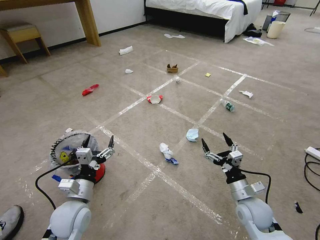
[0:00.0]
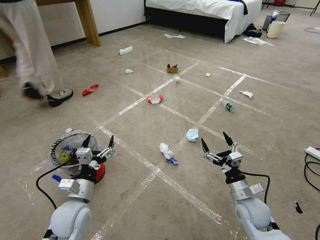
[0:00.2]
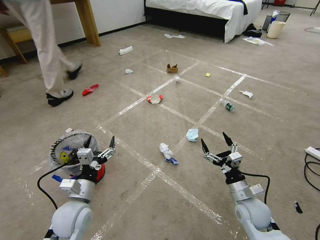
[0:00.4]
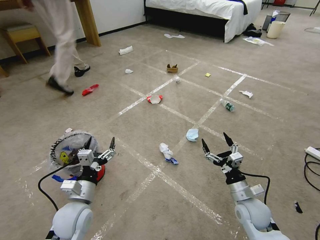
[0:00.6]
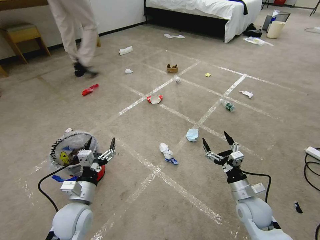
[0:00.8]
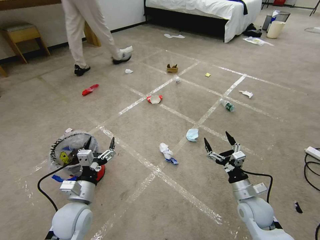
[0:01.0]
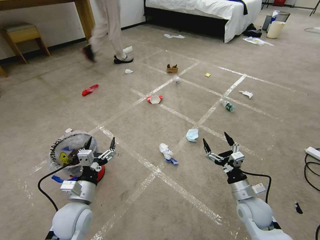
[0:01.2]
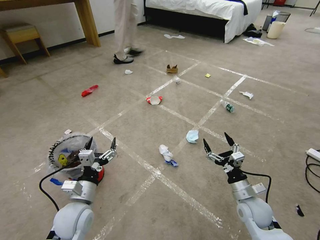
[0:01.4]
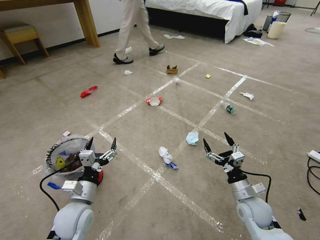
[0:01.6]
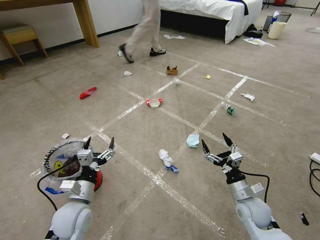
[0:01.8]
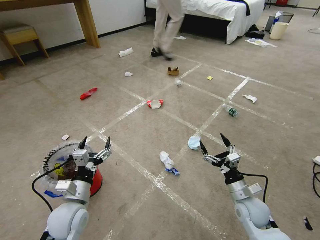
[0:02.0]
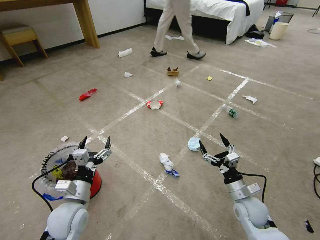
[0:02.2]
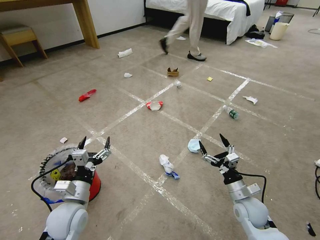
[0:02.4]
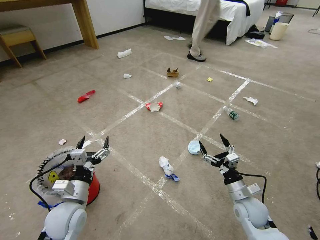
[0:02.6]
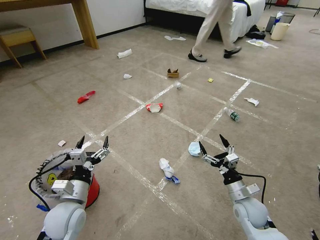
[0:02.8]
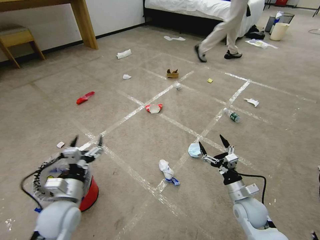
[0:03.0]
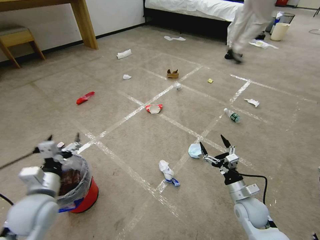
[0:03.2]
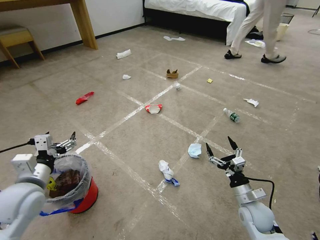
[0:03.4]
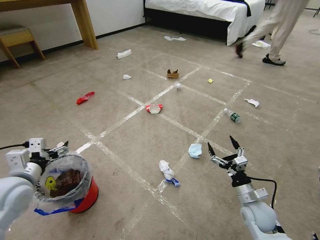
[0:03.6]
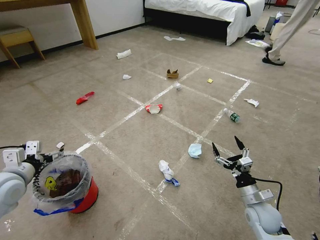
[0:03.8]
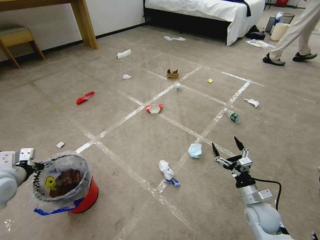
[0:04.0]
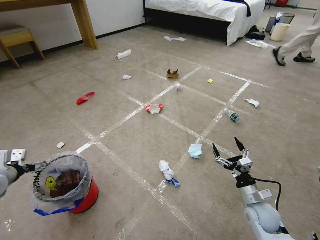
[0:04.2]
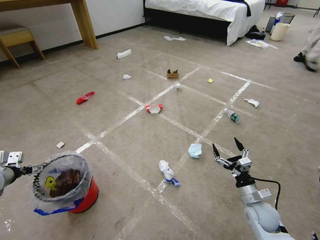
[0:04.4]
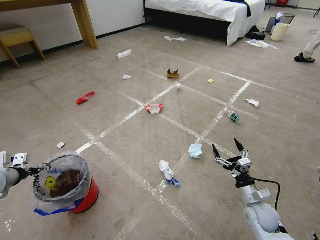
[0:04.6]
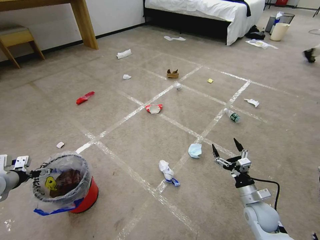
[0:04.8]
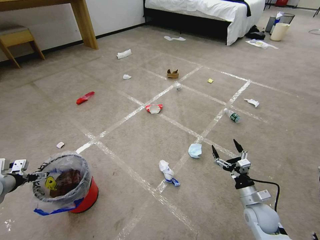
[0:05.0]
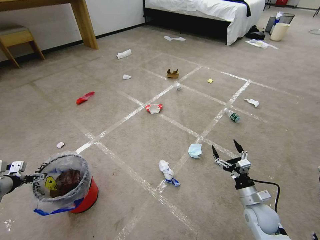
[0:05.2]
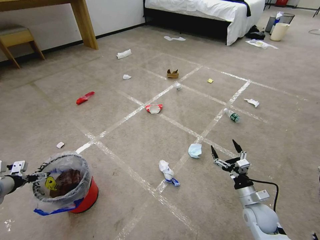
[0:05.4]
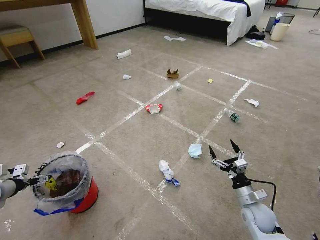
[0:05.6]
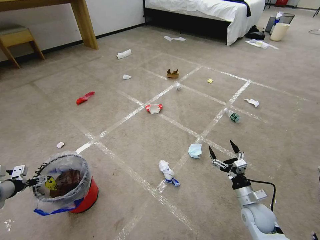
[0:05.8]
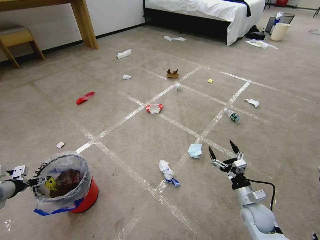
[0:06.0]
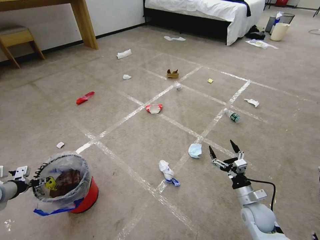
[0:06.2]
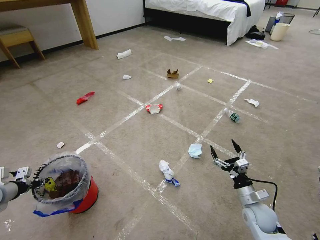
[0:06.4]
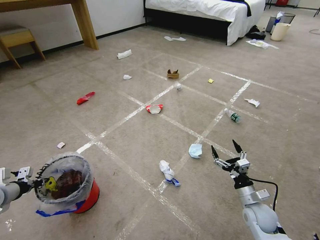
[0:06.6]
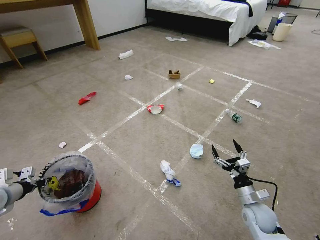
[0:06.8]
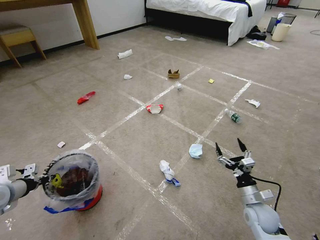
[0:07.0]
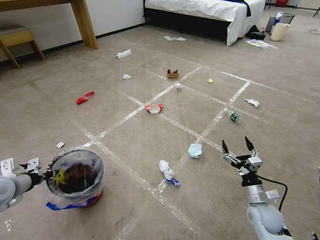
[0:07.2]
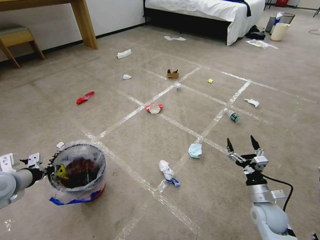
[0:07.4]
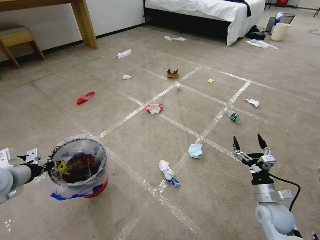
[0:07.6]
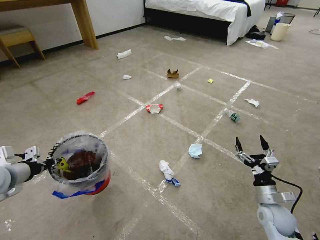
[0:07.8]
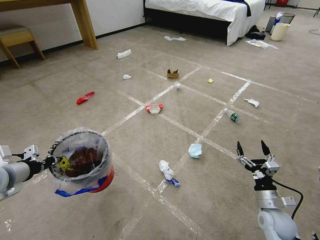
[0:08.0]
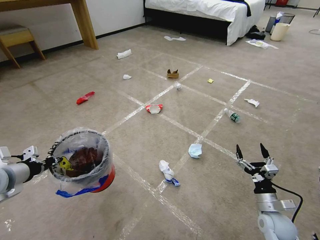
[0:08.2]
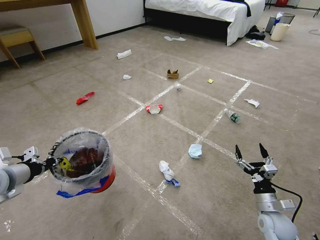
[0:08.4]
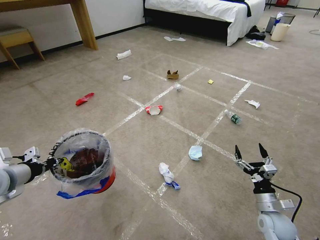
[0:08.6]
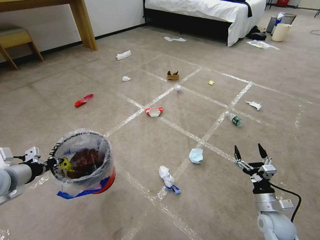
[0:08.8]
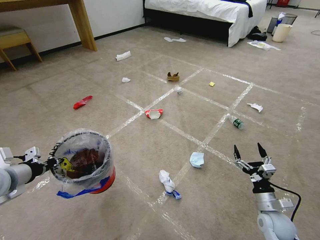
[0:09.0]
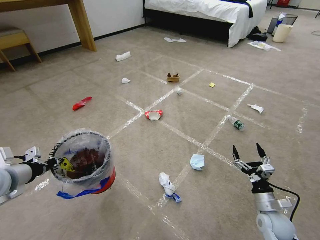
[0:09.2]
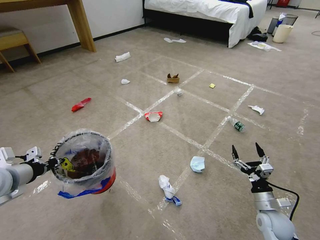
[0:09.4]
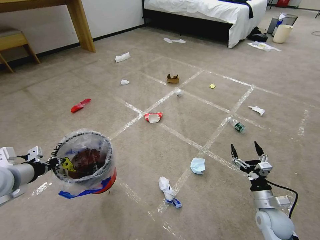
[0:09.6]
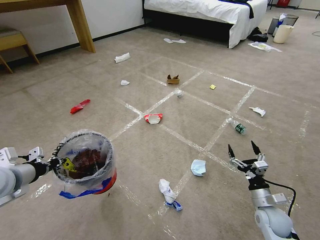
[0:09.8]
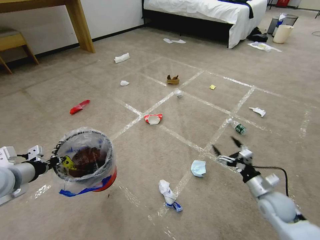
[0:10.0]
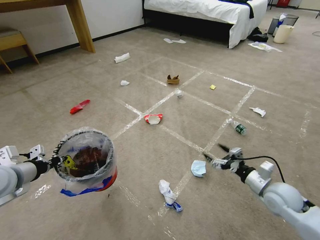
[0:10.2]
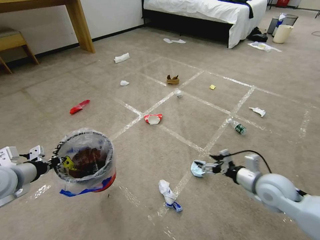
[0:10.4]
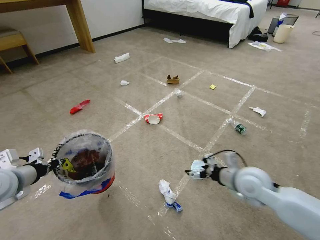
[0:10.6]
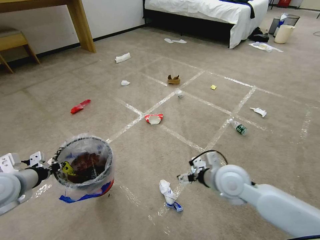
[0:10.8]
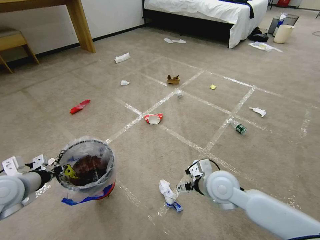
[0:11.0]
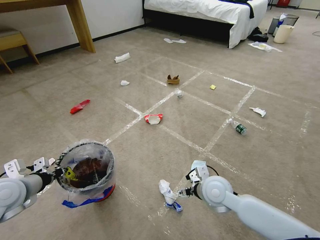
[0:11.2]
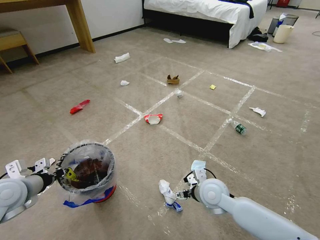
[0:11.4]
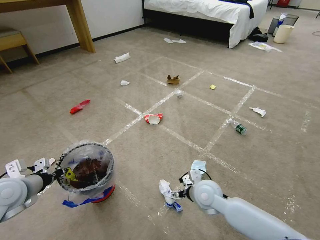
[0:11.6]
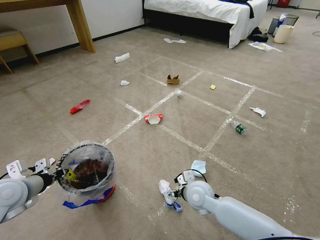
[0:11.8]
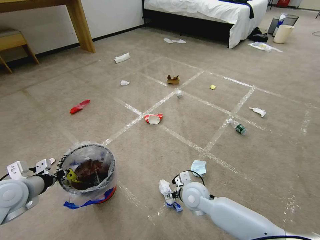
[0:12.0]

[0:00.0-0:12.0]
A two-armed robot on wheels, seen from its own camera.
Task of the whole recording: Pick up the trash bin and place the garbage on the floor into it.
0:03.0 to 0:04.4: The left gripper goes approximately 20 cm to the left.
0:04.4 to 0:06.0: The left gripper shifts about 5 cm downward.
0:06.0 to 0:07.6: The right gripper changes place by approximately 5 cm; the left gripper heads to the right and upward, covering about 15 cm, and closes up.
0:07.6 to 0:09.0: The grippers make only small movements.
0:09.0 to 0:10.4: The right gripper travels upward and forward by roughly 15 cm.
0:10.4 to 0:12.0: The right gripper goes some 25 cm to the left and downward. Meanwhile the left gripper shifts by approximately 5 cm.

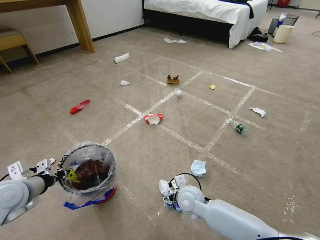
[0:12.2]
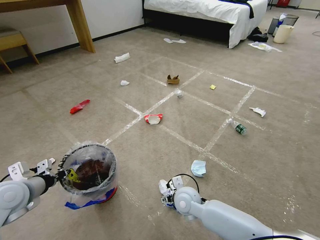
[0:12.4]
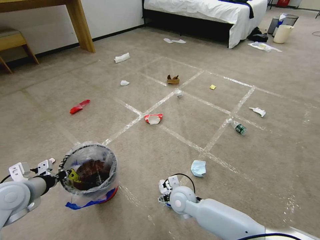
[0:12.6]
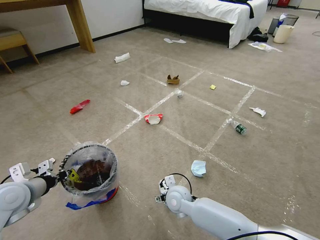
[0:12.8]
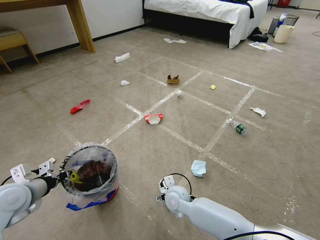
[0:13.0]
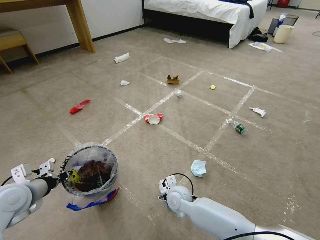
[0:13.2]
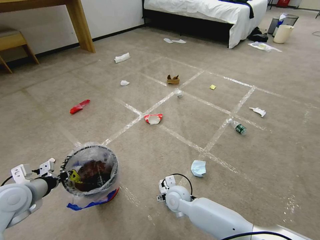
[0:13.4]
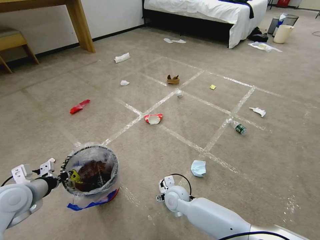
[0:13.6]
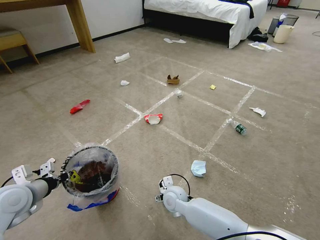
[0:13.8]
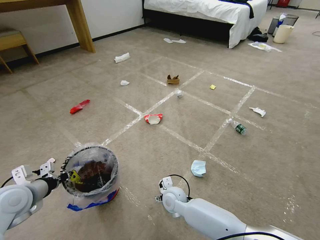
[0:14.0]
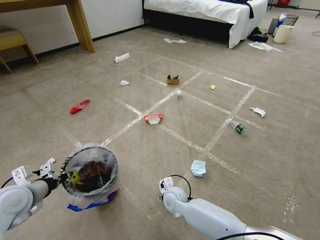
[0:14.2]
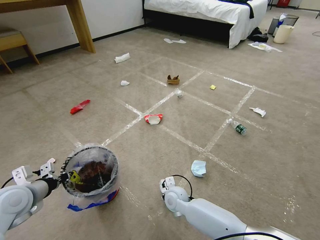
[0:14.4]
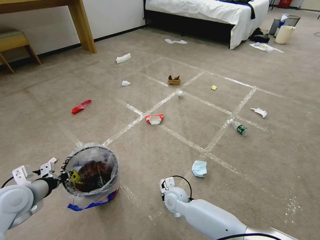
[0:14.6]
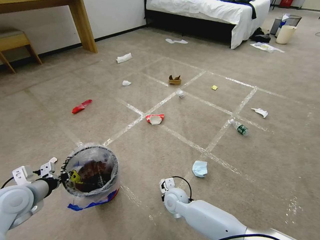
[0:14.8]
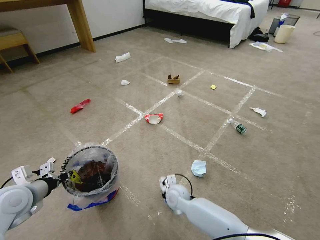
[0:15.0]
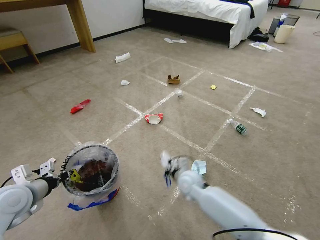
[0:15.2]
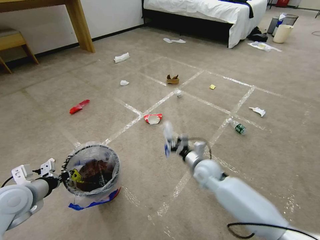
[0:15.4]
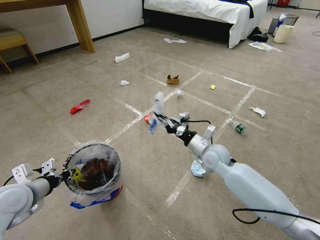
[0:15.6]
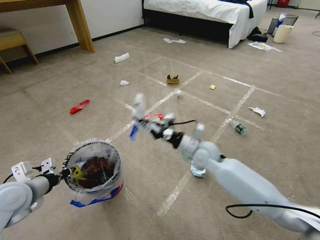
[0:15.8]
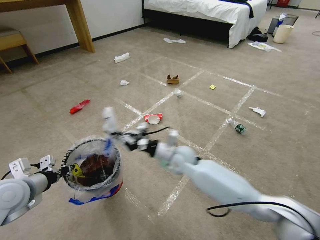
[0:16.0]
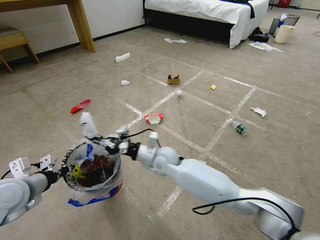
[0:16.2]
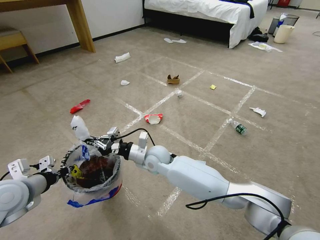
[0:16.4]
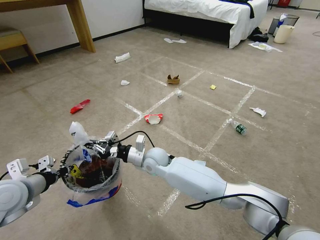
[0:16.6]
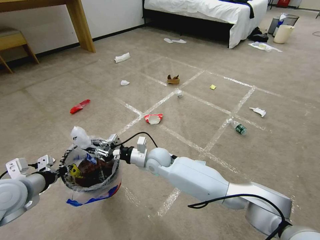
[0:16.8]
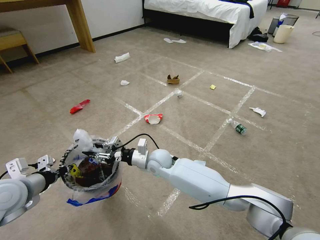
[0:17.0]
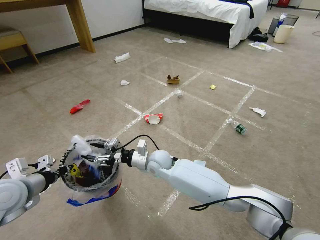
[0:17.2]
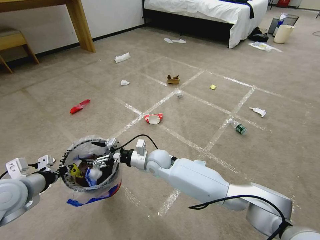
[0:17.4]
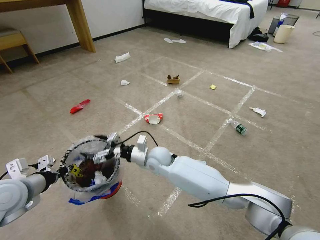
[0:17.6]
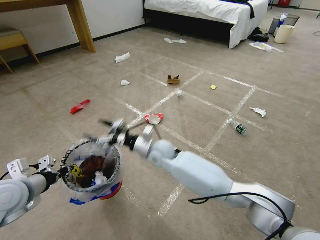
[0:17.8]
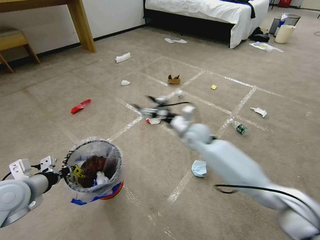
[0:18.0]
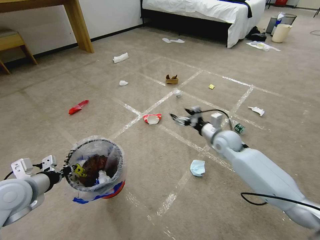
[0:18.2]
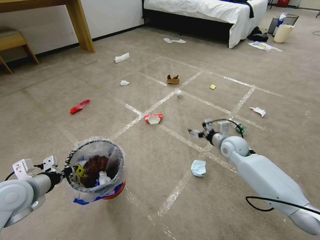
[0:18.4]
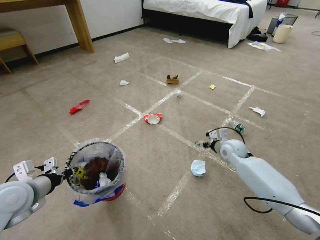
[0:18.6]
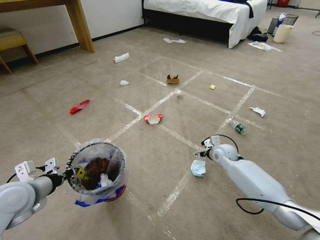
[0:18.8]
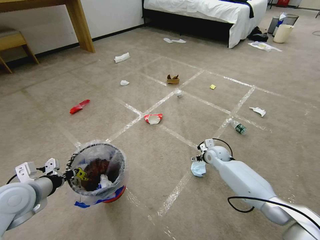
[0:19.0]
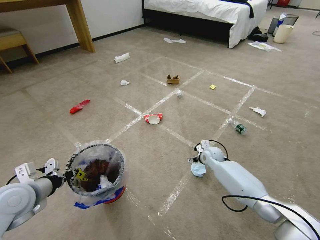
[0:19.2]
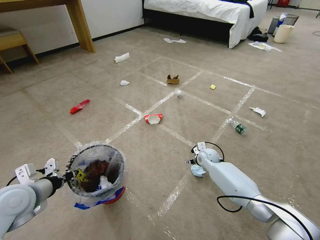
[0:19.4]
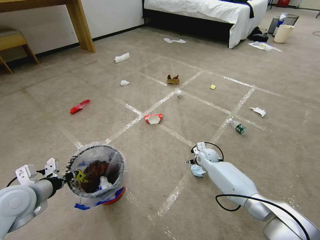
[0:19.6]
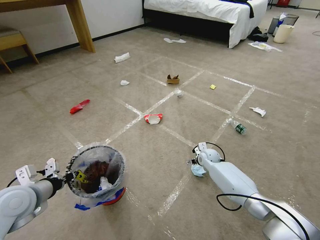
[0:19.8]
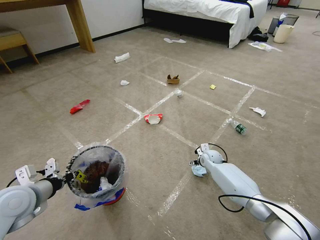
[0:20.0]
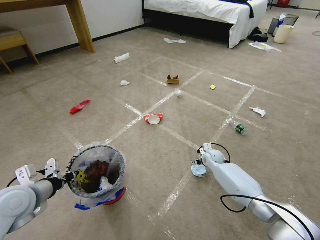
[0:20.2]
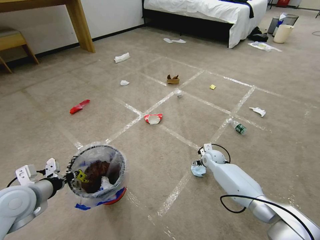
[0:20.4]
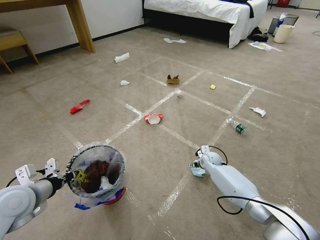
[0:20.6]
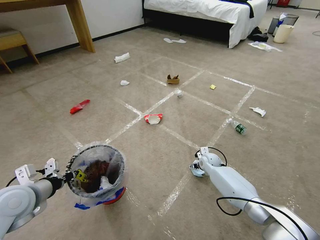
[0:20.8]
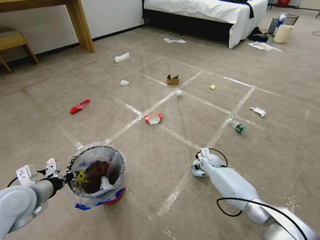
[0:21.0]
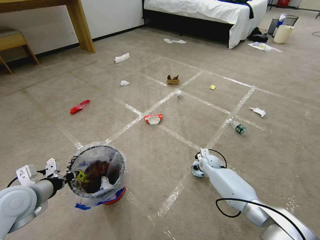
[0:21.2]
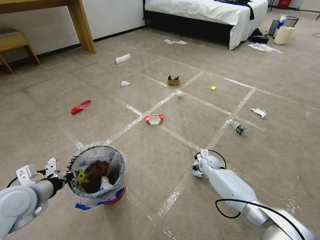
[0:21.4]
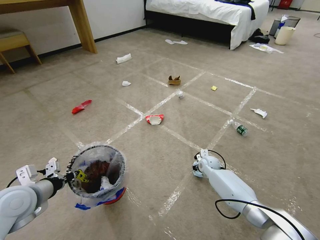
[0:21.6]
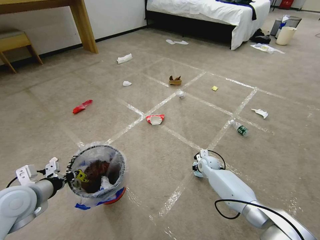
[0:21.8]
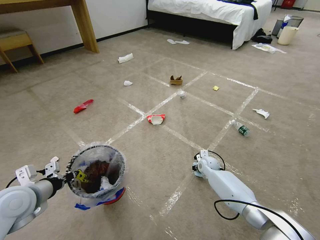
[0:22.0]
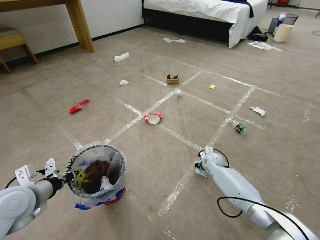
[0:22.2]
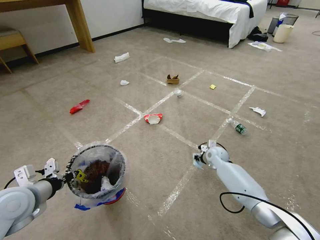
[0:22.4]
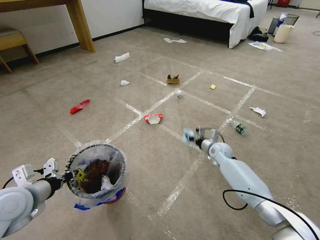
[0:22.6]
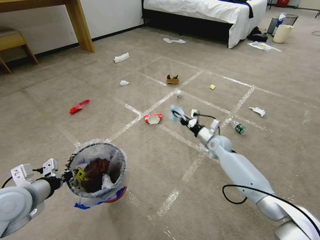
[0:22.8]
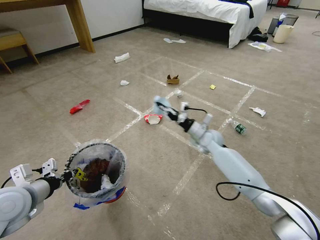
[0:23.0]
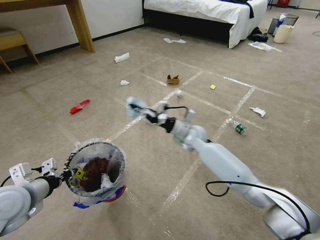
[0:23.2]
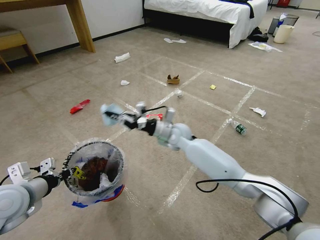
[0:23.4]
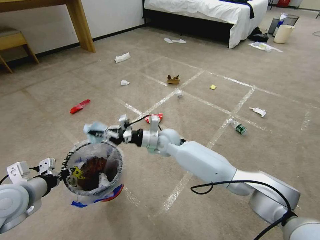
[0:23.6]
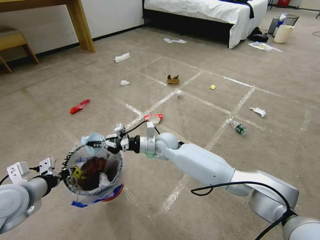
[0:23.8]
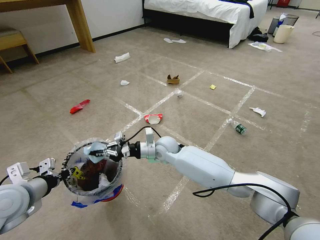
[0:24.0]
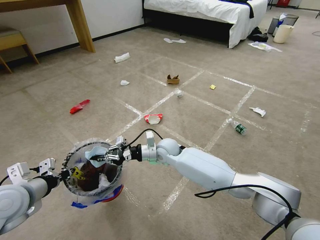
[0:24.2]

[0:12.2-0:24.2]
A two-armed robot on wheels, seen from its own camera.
Task of the whole recording: Pick up the trash bin and place the garbage on the floor into it.
0:12.2 to 0:13.8: The right gripper shifts roughly 5 cm downward.
0:13.8 to 0:15.2: The right gripper moves about 5 cm, and closes its fingers.
0:15.2 to 0:16.6: The right gripper shifts about 15 cm to the left, upward and forward.
0:16.6 to 0:18.2: The right gripper is displaced to the right by about 25 cm, and opens up.
0:18.2 to 0:19.8: The right gripper shifts some 15 cm downward.
0:19.8 to 0:21.2: The grippers stay close to where they were, moving slightly.
0:21.2 to 0:22.6: The right gripper shifts some 10 cm upward, and closes its fingers.
0:22.6 to 0:24.2: The right gripper travels to the left by roughly 25 cm.
